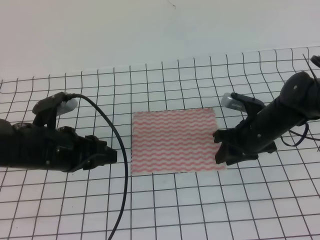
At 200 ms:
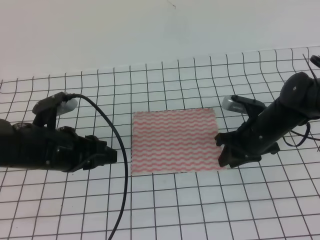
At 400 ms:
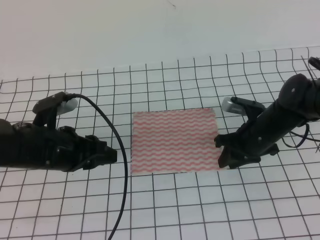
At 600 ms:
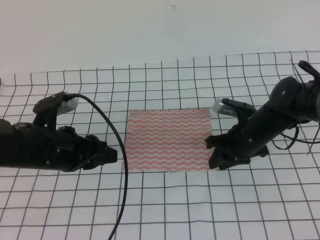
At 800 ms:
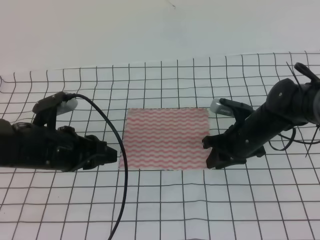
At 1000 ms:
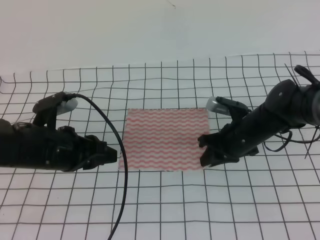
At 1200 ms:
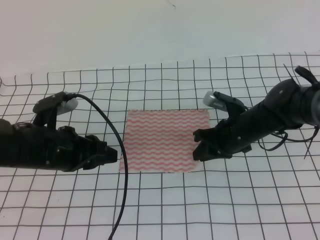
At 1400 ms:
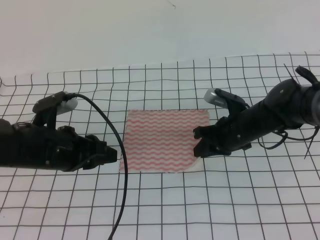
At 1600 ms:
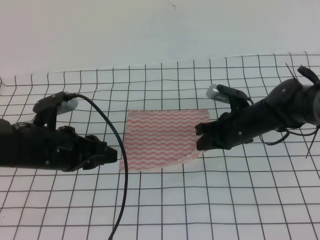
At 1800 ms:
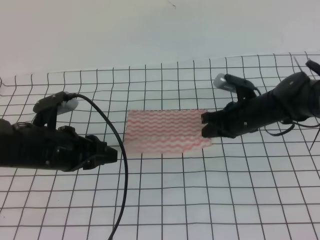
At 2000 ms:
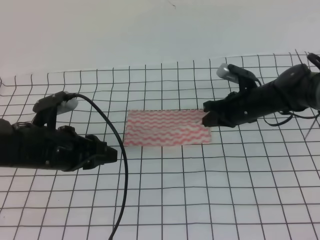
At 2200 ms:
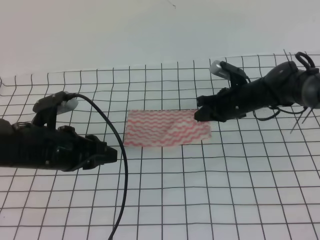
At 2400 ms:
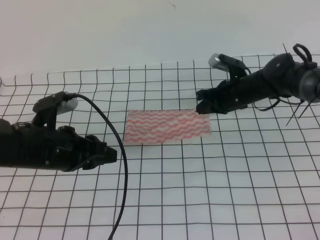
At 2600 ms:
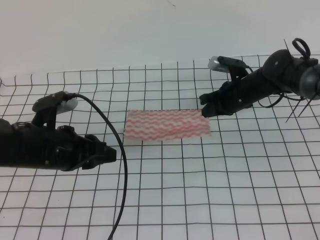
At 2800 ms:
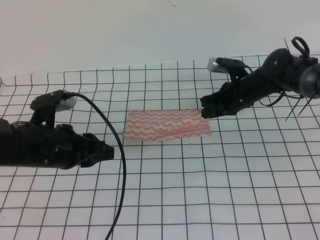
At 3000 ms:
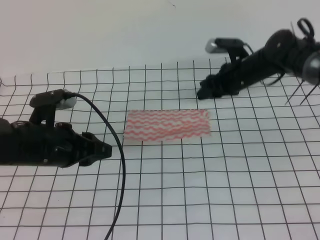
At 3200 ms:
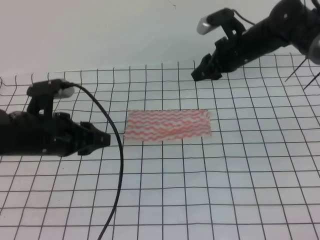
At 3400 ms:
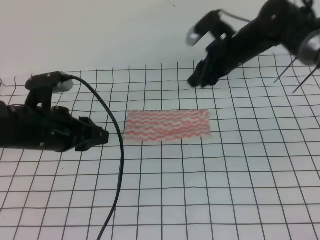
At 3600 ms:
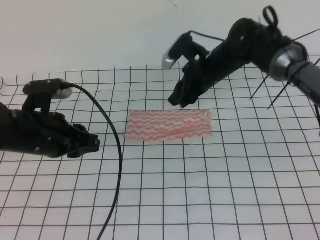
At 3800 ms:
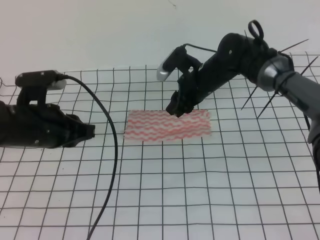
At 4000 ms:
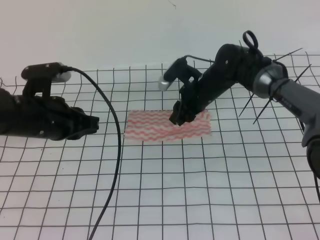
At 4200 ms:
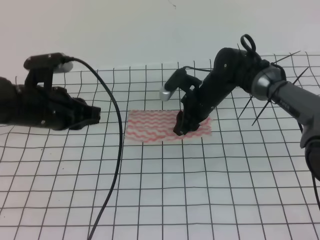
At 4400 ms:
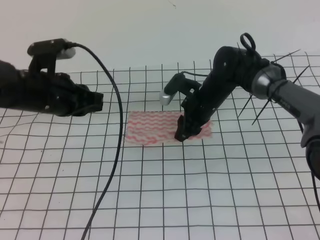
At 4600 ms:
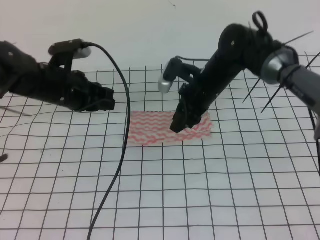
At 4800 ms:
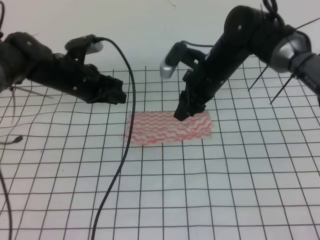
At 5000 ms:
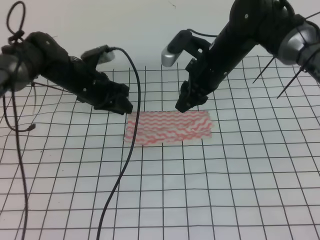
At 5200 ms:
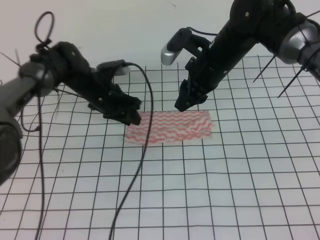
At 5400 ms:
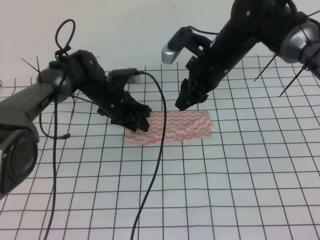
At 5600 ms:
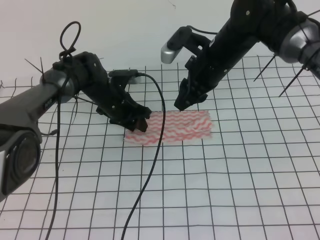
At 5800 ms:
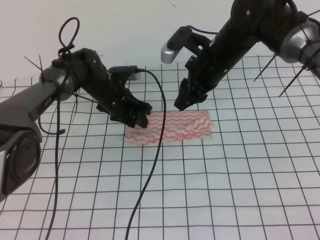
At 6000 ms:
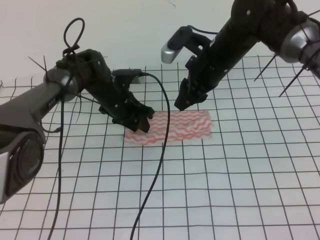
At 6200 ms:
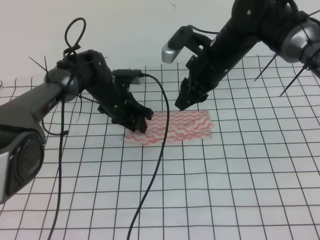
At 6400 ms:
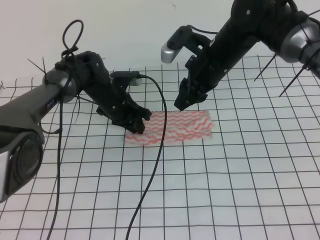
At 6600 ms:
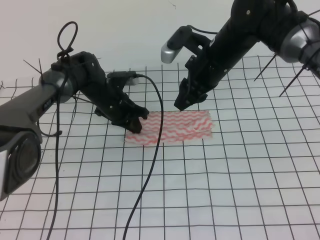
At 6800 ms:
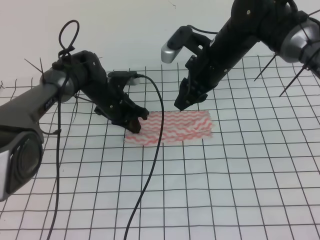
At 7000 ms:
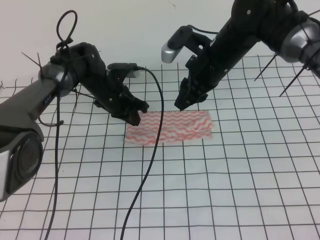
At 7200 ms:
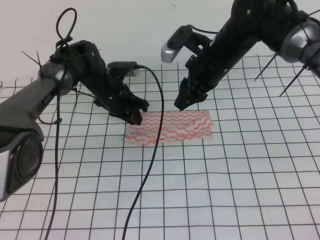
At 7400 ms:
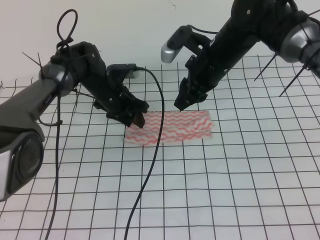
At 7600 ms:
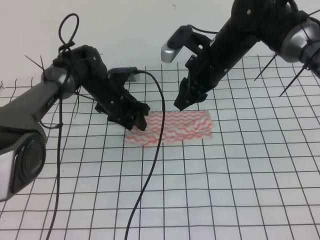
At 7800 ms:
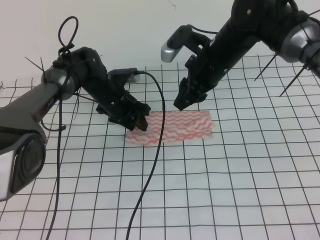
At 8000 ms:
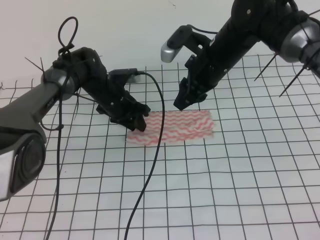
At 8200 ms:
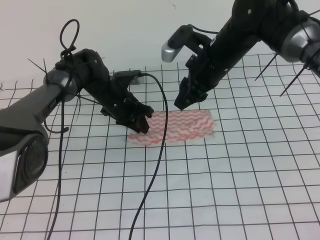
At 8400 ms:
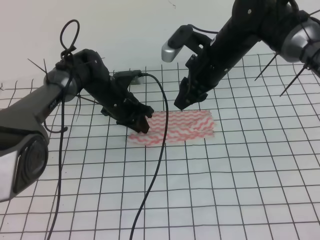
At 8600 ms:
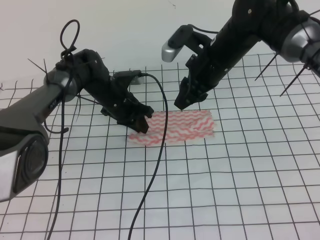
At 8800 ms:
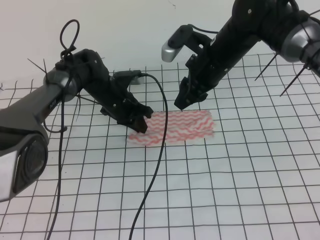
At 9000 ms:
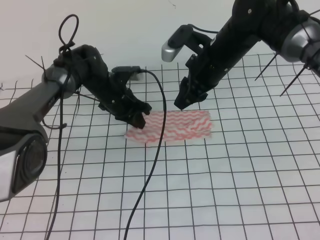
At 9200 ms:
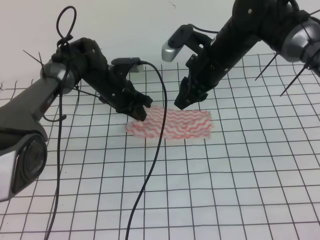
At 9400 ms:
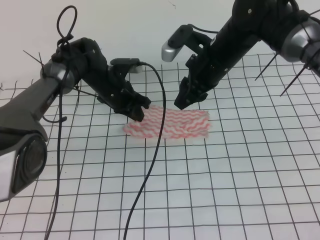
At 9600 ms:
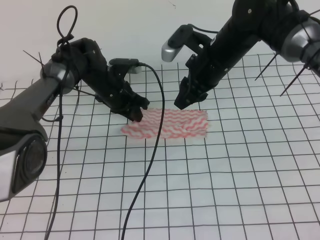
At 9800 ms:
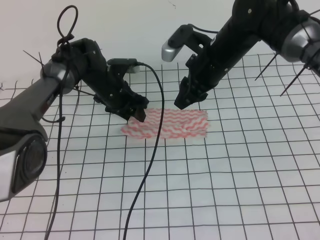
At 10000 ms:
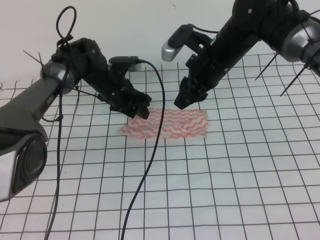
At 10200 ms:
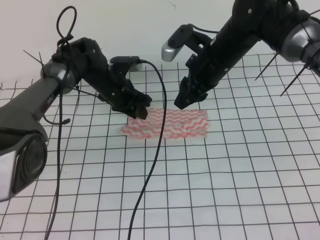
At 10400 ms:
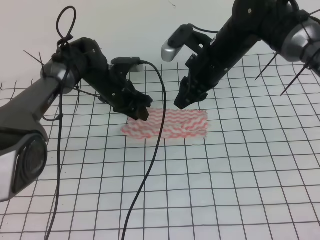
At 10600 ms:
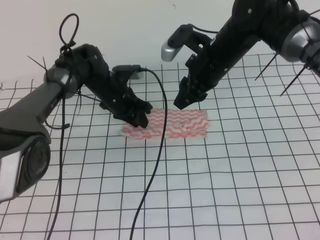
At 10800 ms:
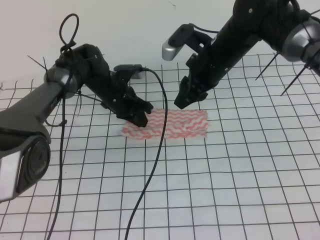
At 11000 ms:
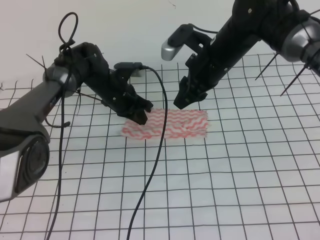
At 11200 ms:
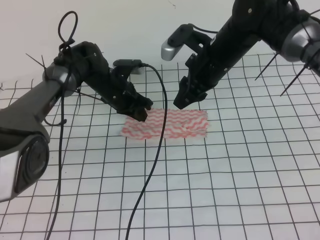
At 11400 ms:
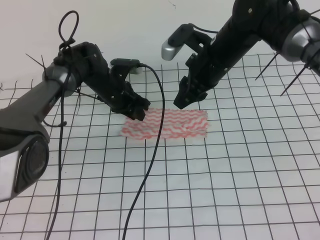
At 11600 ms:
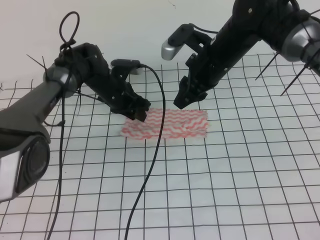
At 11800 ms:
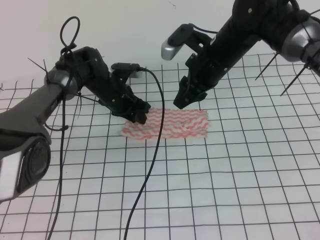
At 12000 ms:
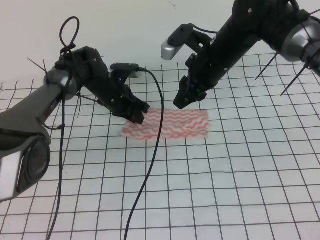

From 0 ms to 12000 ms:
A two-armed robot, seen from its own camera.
From 0 ms to 1600 ms: The right gripper closes up.
From 1600 ms to 3000 ms: The right gripper travels forward by approximately 10 cm, and opens up.
From 3000 ms to 4400 ms: The right gripper is displaced to the left by some 10 cm, and moves about 5 cm upward and comes back. Meanwhile the left gripper shifts approximately 5 cm forward, and closes its fingers.
From 4400 ms to 6000 ms: The left gripper heads forward, downward and to the right, covering approximately 20 cm, and opens, while the right gripper heads upward, covering about 10 cm.
From 6000 ms to 7600 ms: The left gripper closes, then opens again.
From 7600 ms to 9000 ms: The left gripper closes its fingers.
From 9000 ms to 10400 ms: The left gripper opens.
From 10400 ms to 12000 ms: The left gripper closes.

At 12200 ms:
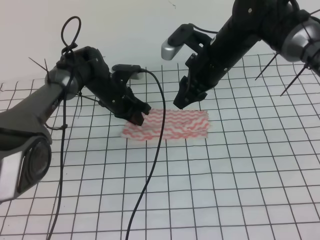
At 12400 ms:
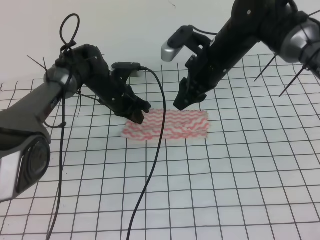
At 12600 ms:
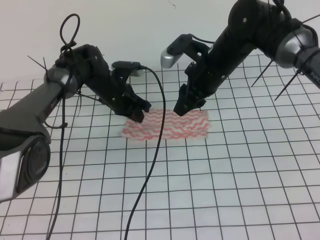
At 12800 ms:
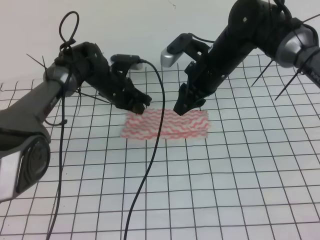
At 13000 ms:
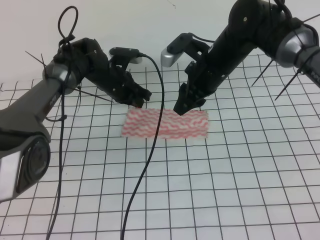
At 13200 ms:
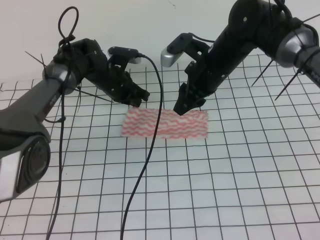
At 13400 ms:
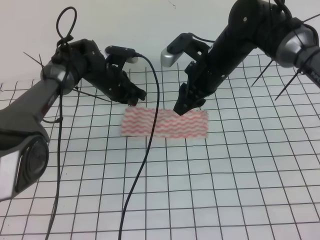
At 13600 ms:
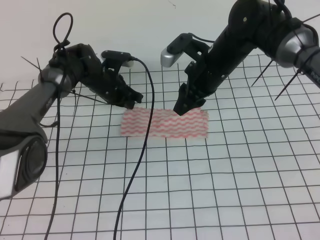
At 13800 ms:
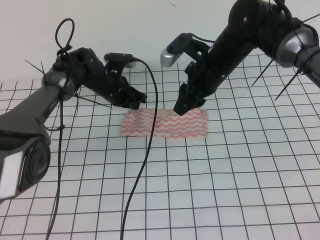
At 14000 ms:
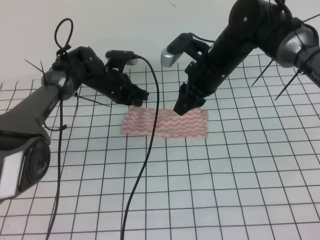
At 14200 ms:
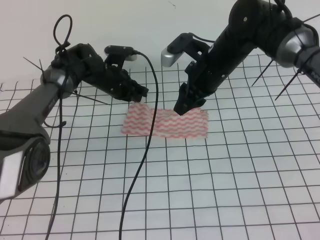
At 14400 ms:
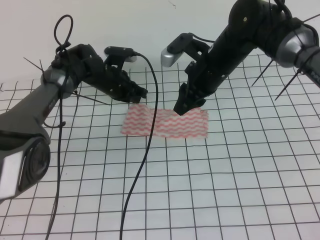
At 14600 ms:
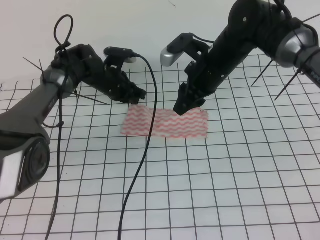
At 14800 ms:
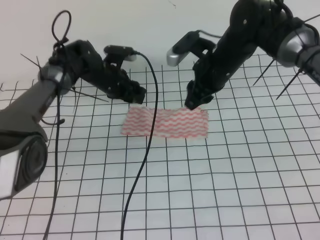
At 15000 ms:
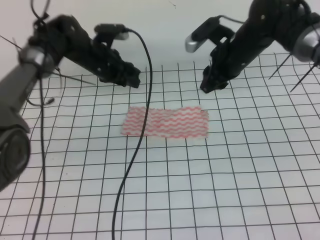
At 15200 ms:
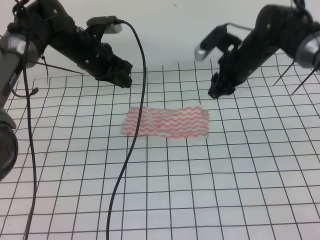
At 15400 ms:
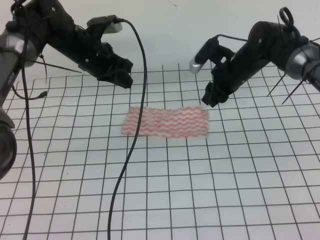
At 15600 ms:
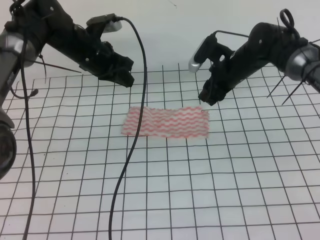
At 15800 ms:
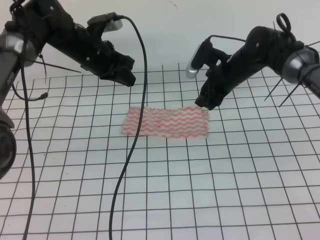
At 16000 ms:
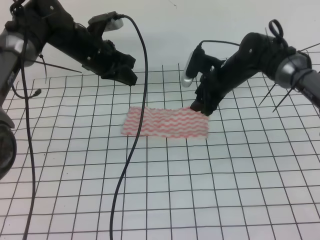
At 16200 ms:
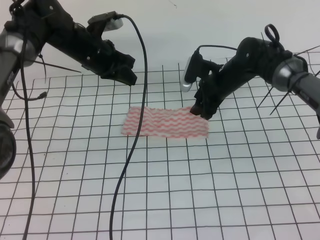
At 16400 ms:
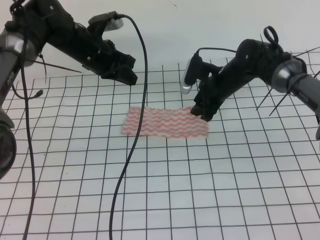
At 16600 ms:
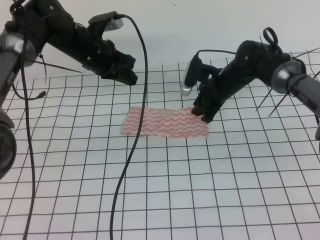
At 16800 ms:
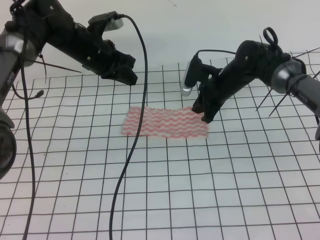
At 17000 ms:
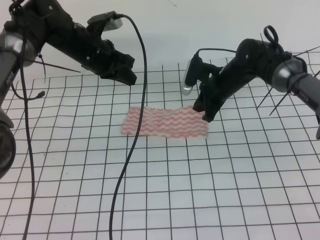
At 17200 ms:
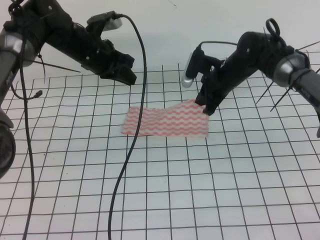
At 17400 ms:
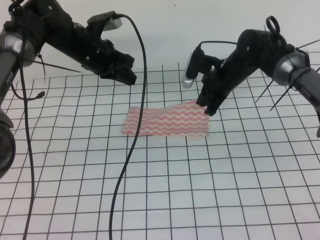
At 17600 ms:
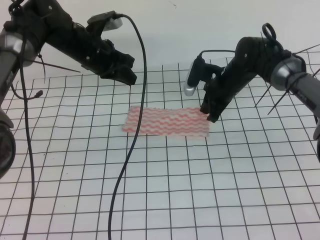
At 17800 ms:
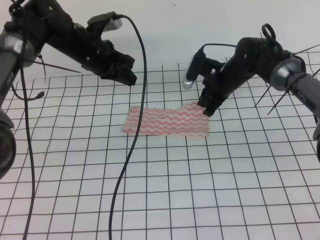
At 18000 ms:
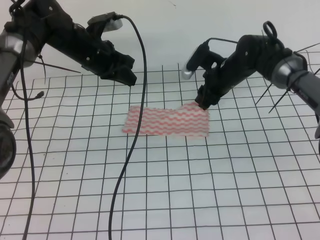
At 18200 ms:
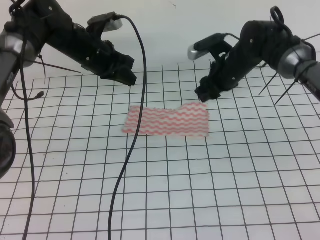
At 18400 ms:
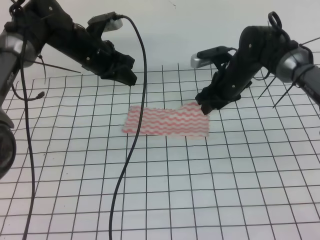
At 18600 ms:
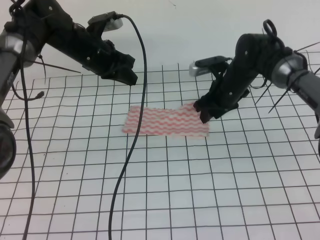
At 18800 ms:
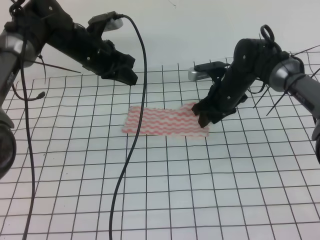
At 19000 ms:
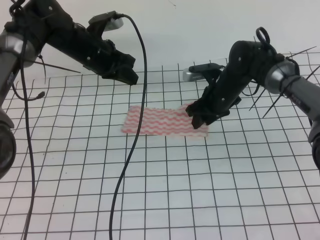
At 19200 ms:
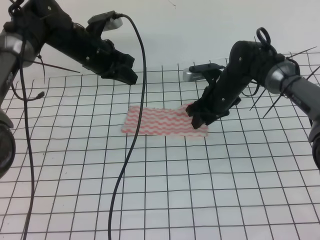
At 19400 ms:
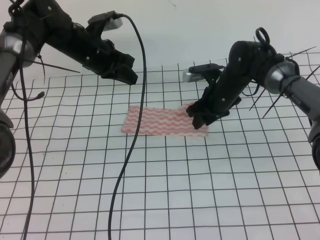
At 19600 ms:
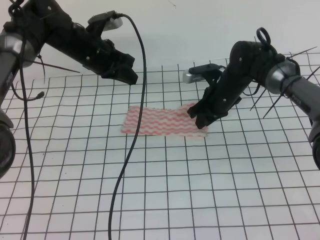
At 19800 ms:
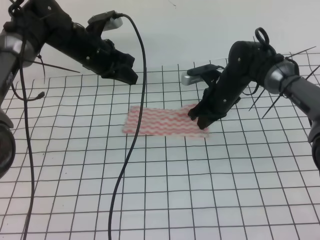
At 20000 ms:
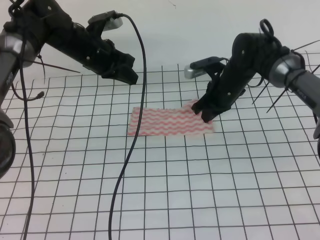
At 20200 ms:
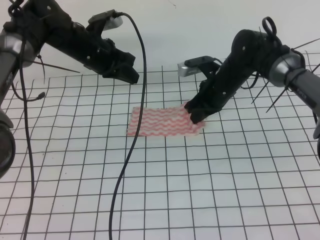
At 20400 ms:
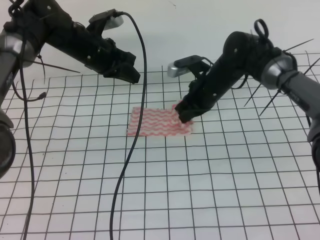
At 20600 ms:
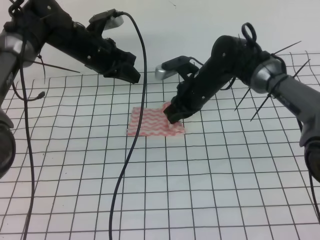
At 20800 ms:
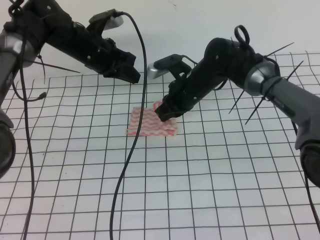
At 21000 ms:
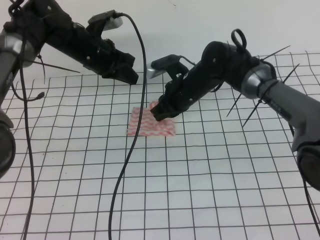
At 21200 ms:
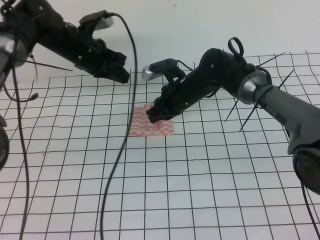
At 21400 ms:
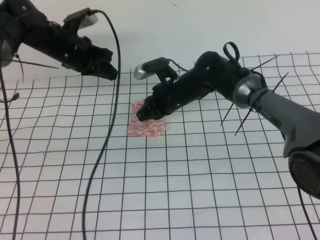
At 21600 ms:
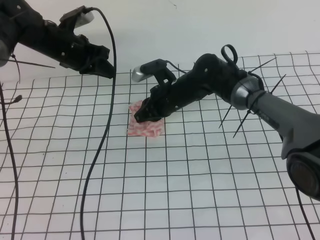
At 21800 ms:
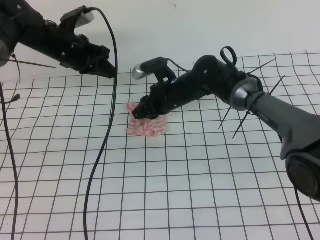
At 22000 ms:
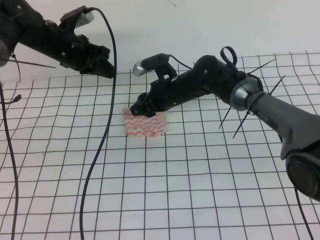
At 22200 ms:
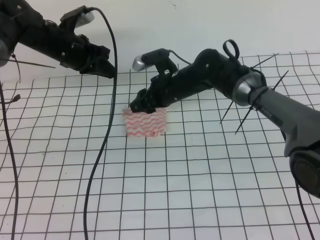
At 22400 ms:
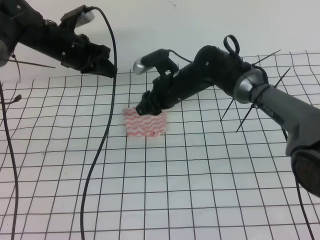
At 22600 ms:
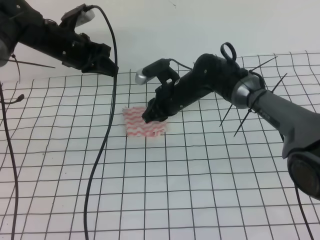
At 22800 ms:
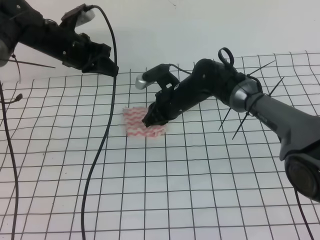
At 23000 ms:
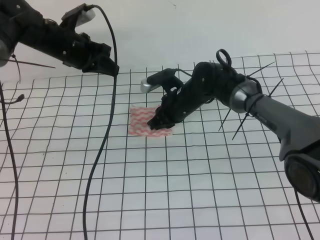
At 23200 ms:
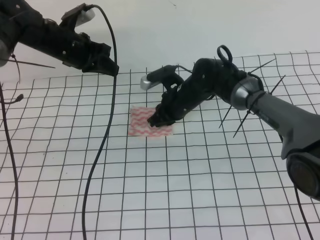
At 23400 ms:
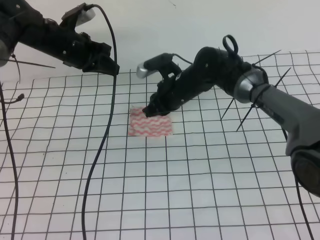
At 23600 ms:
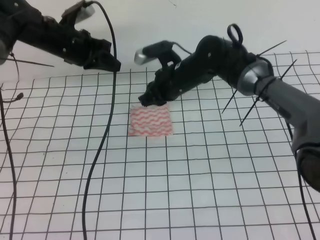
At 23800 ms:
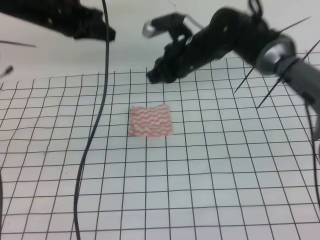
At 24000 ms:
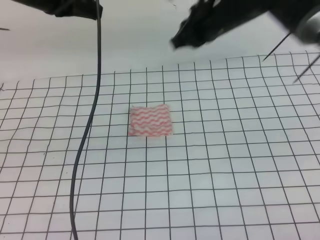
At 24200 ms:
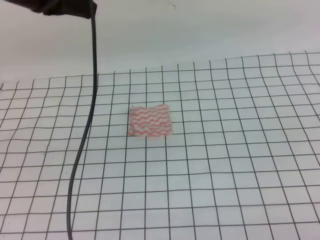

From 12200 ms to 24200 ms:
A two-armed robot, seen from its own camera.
From 12200 ms to 13800 ms: There are only small adjustments of the grippers.
From 13800 ms to 15200 ms: The left gripper heads upward, covering roughly 10 cm, and opens and closes again, while the right gripper is displaced to the right by approximately 5 cm.
From 15200 ms to 16600 ms: The right gripper goes some 5 cm downward.
From 16600 ms to 18200 ms: The right gripper opens its fingers.
From 18200 ms to 19800 ms: The right gripper closes.
From 19800 ms to 21200 ms: The right gripper travels to the left by about 10 cm.
From 21200 ms to 22600 ms: The right gripper opens.
From 22600 ms to 24200 ms: The right gripper travels upward and to the right by some 30 cm, and closes; the left gripper travels upward and backward by about 20 cm.
